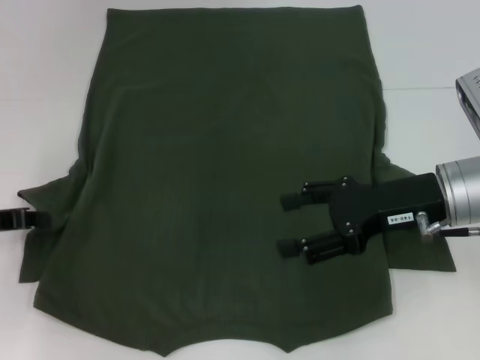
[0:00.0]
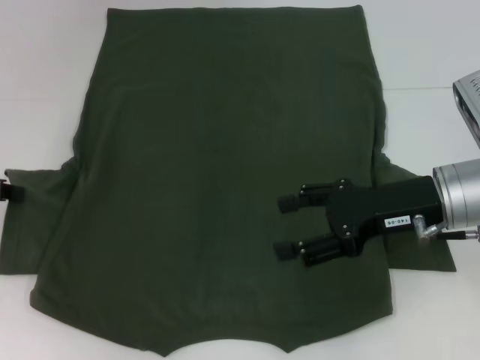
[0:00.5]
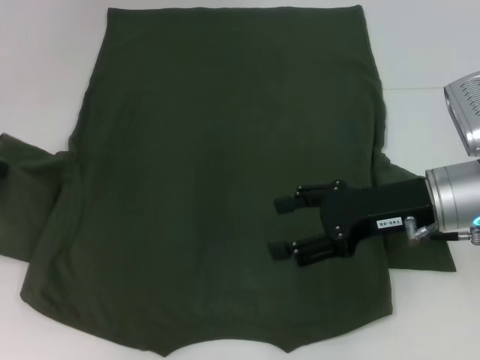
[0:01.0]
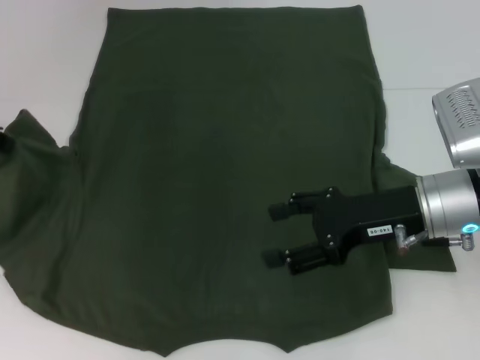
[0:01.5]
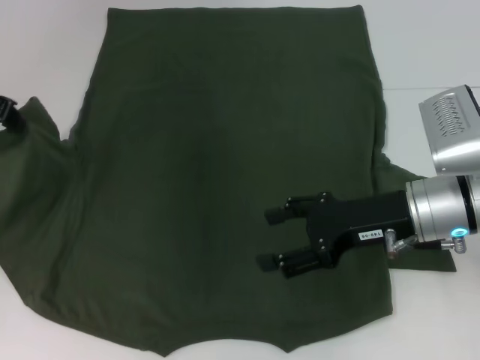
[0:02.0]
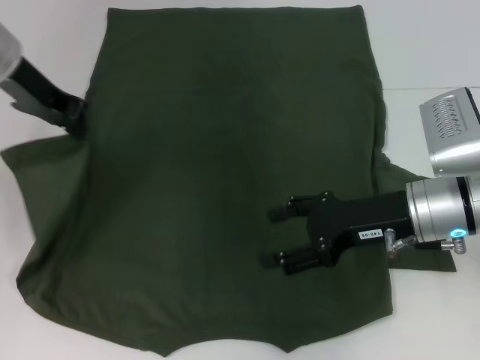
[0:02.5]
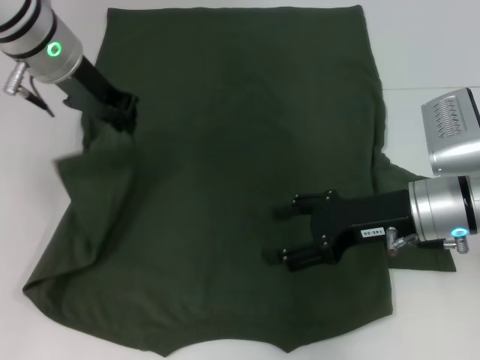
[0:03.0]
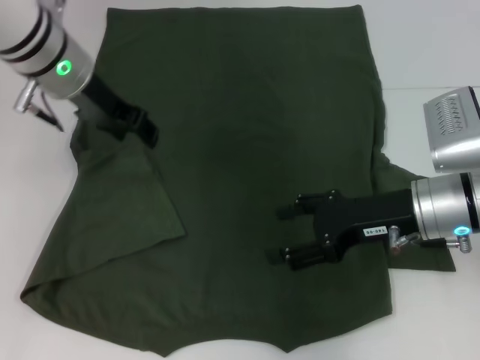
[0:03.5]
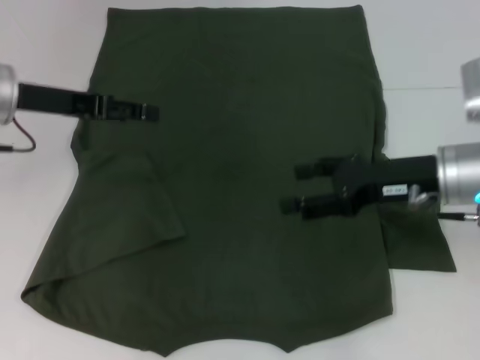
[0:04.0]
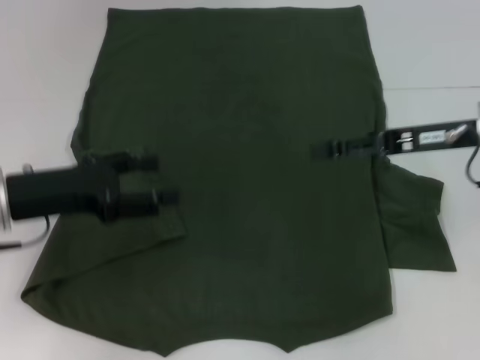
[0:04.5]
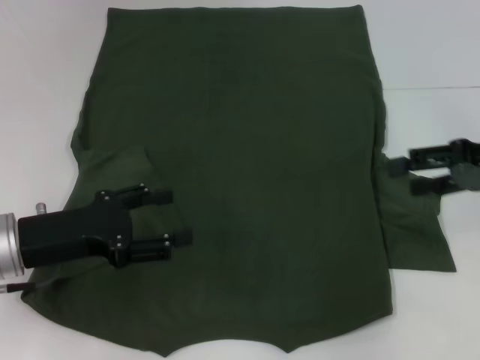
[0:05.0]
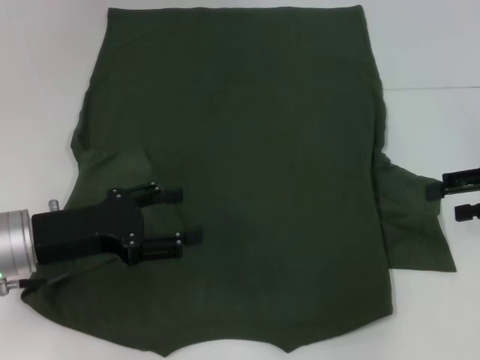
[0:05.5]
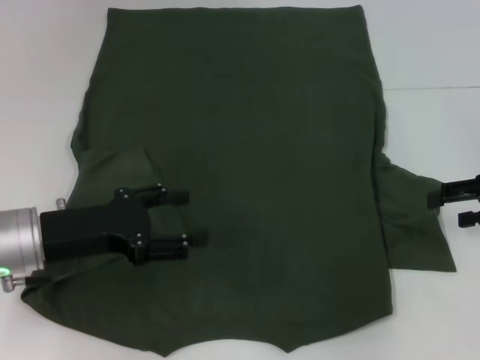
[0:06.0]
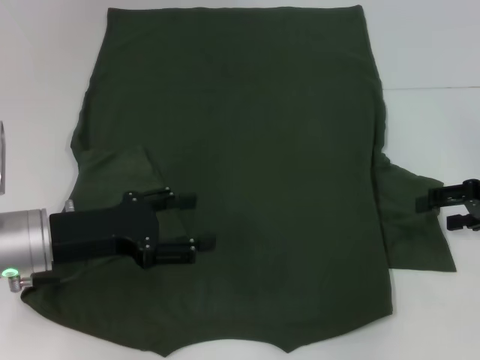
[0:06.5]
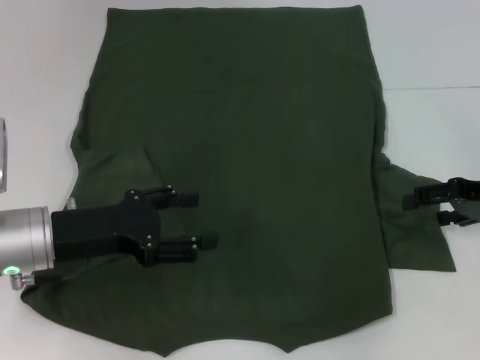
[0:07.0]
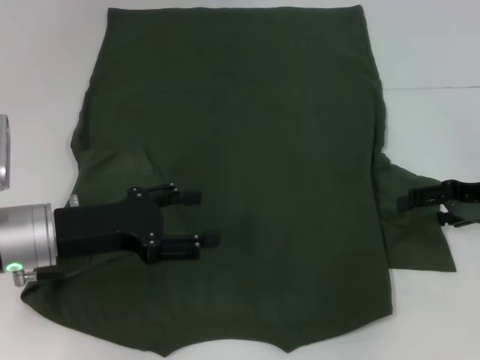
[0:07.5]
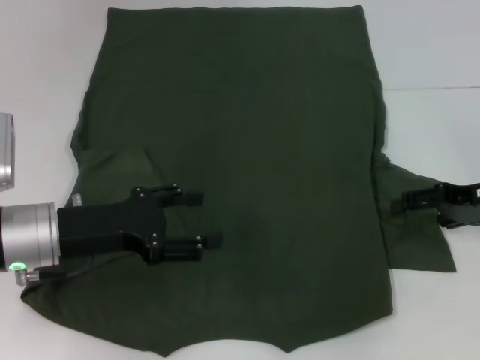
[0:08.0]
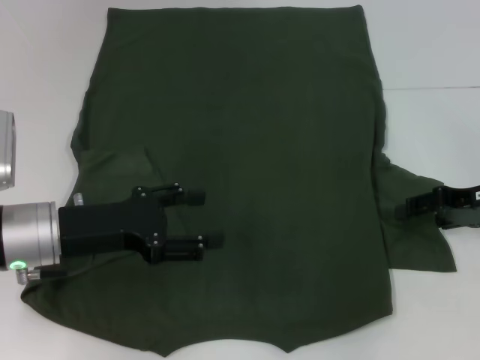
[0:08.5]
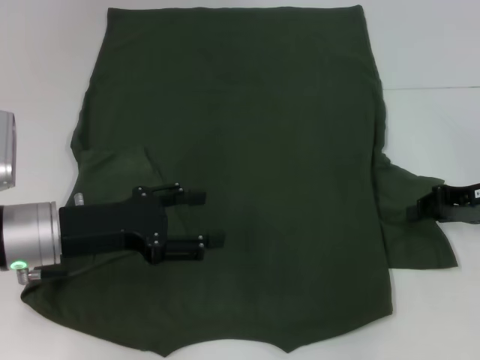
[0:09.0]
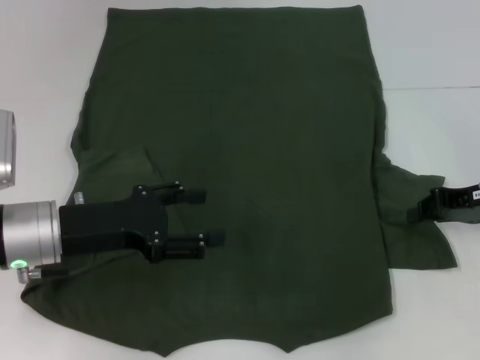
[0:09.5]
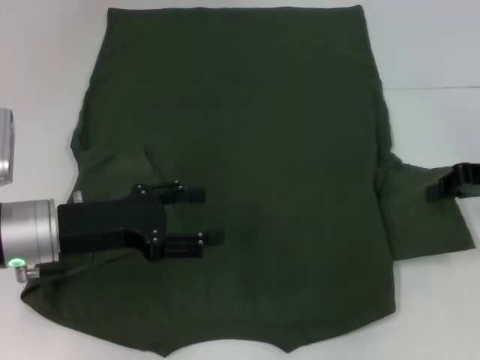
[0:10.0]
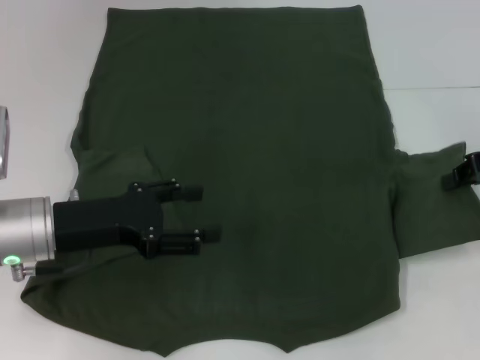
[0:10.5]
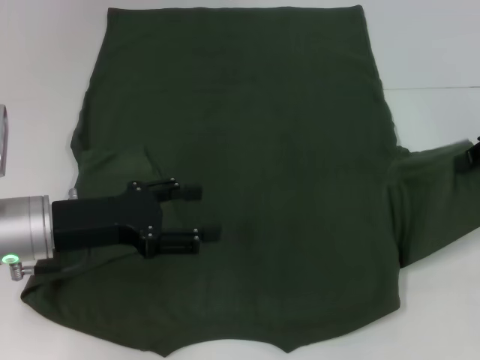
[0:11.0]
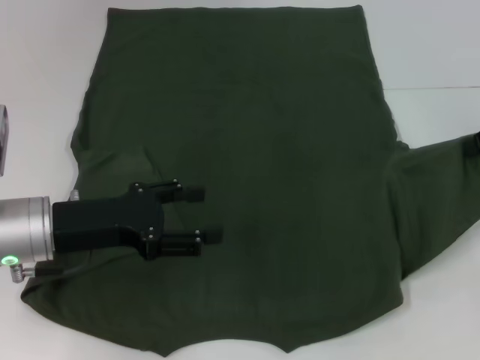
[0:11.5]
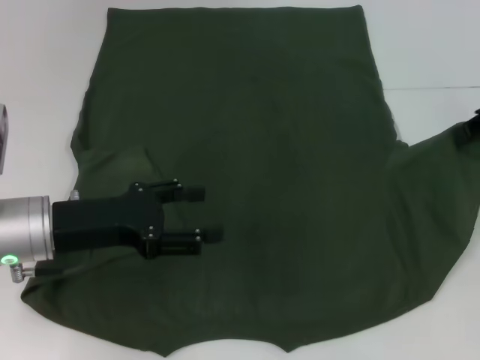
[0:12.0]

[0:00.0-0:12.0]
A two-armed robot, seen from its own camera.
Step, 0.0 to 3.0 s: Fold the bottom left sleeve with your left hand.
0.0 to 2.0 s: The left gripper heads upward and forward, covering some 20 cm.
2.0 to 4.0 s: The left gripper moves to the right, roughly 5 cm, and opens its fingers.
4.0 to 6.0 s: The right gripper shifts approximately 15 cm to the right, while the left gripper travels backward and downward by approximately 15 cm.
6.0 to 8.0 s: The grippers stay close to where they were, moving slightly.
8.0 to 10.0 s: The right gripper closes.
10.0 to 12.0 s: The right gripper goes approximately 10 cm upward.

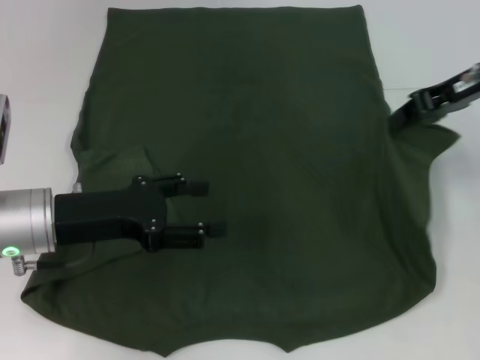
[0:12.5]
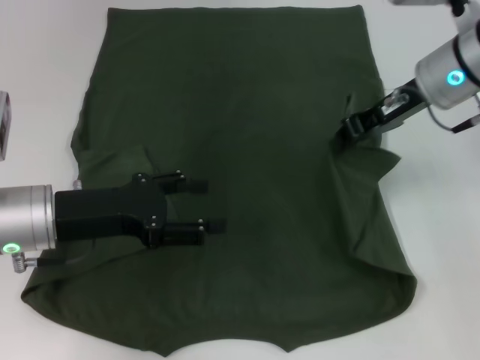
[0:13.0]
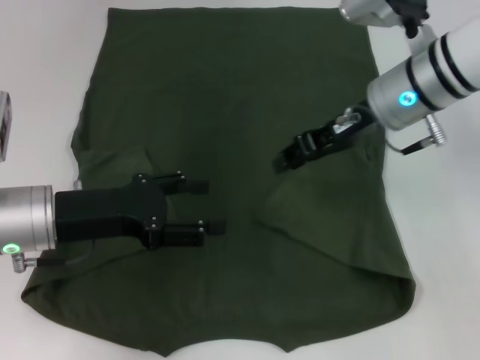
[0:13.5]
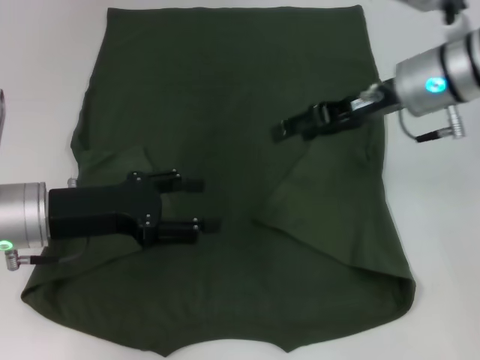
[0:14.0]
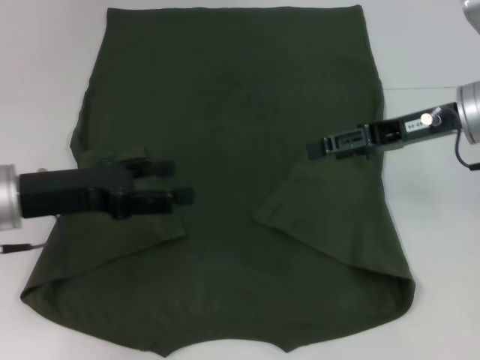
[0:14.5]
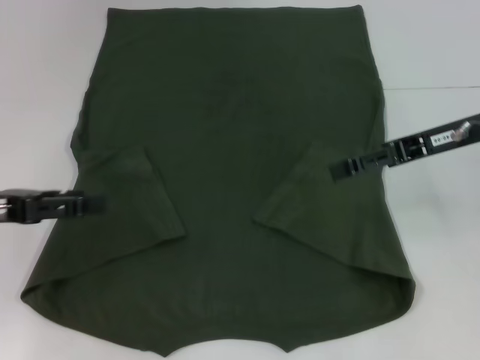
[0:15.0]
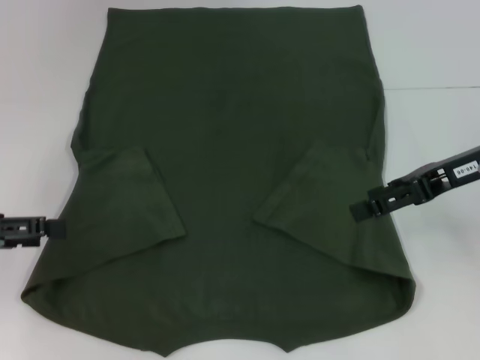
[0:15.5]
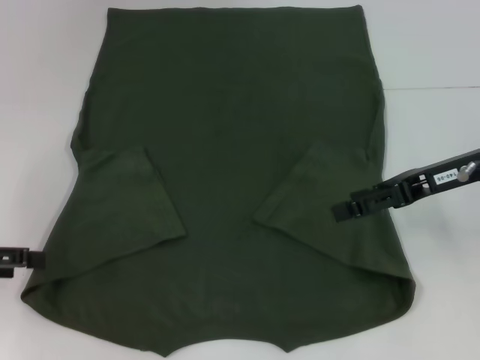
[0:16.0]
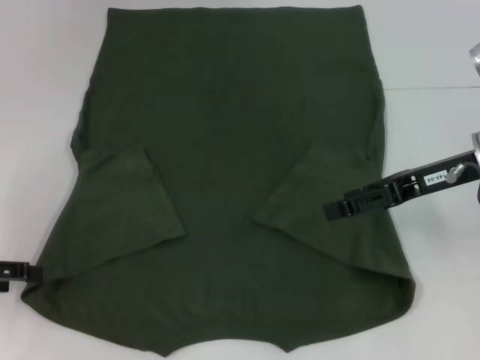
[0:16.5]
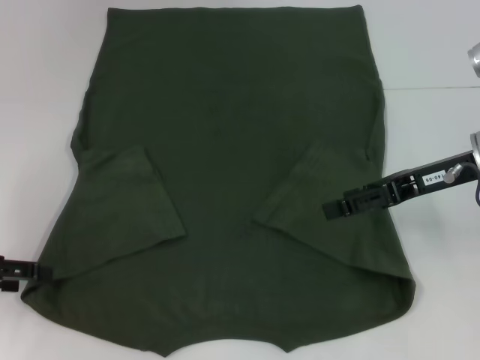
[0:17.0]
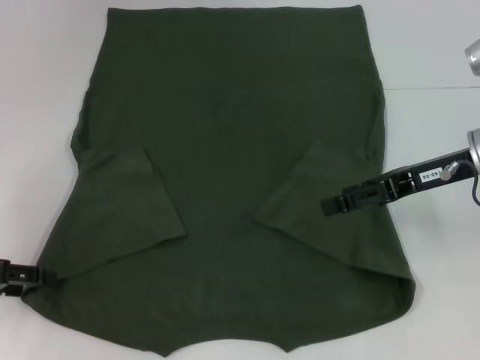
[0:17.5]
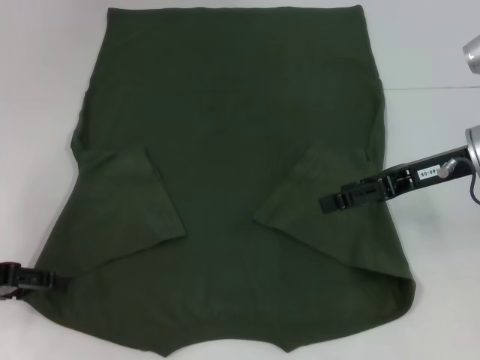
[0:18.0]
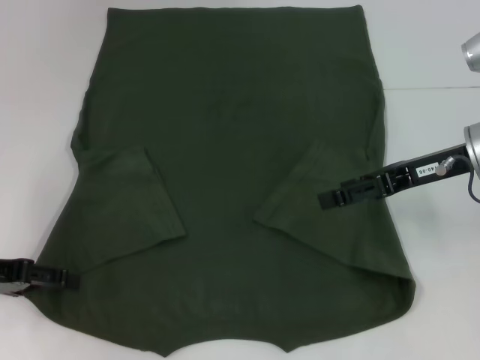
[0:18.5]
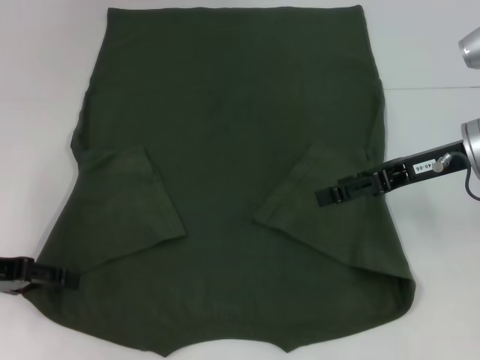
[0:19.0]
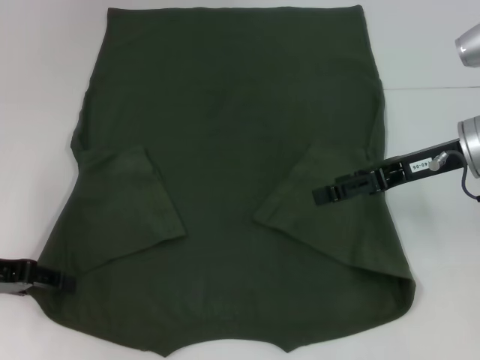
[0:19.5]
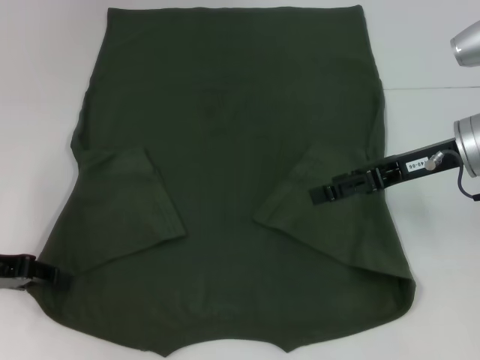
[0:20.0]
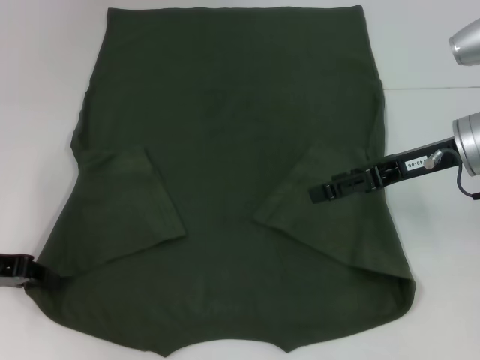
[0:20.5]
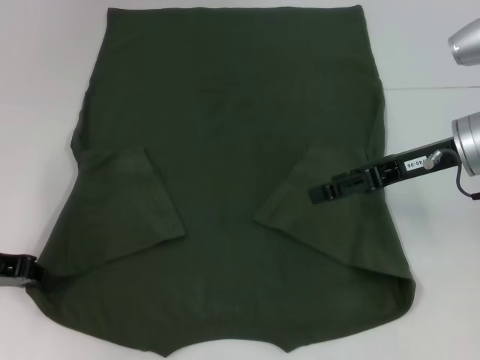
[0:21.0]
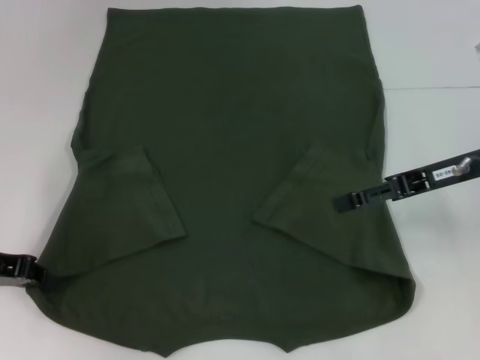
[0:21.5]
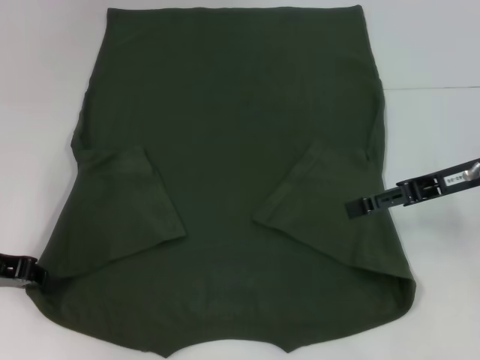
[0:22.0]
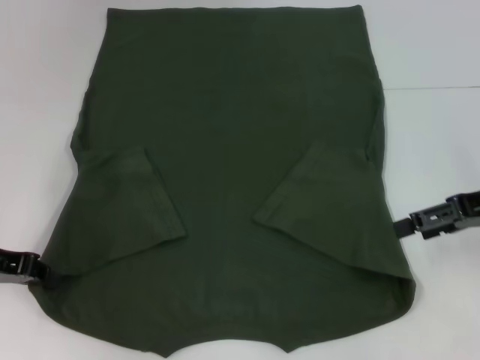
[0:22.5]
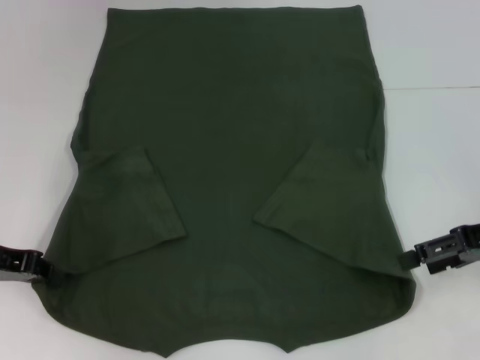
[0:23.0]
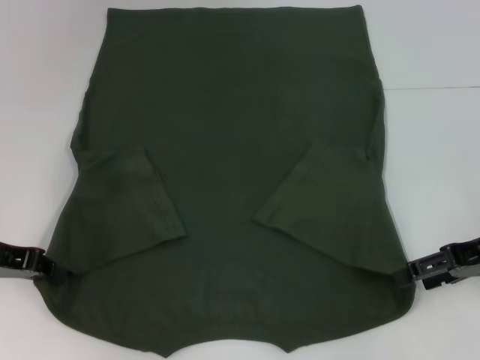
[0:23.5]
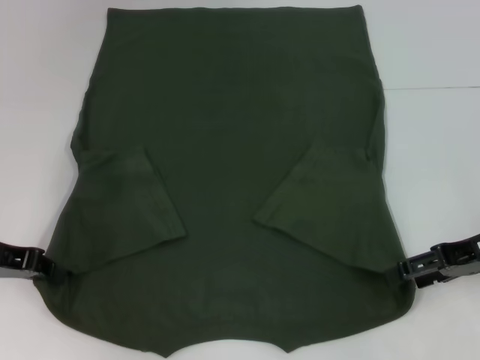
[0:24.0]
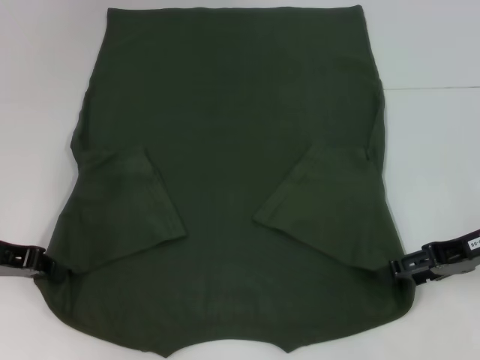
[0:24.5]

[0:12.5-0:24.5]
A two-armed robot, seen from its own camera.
Step, 14.0 to 21.5 s: Grab the bottom left corner with your left hand.
12.5 to 14.5 s: The right gripper travels to the left and back again, about 10 cm each way, and opens its fingers.
14.5 to 16.5 s: The left gripper goes approximately 10 cm to the left.
16.5 to 18.5 s: The grippers make only small movements.
18.5 to 20.5 s: The left gripper closes its fingers.
20.5 to 22.5 s: The right gripper goes roughly 10 cm to the right.
22.5 to 24.5 s: The right gripper moves some 5 cm.

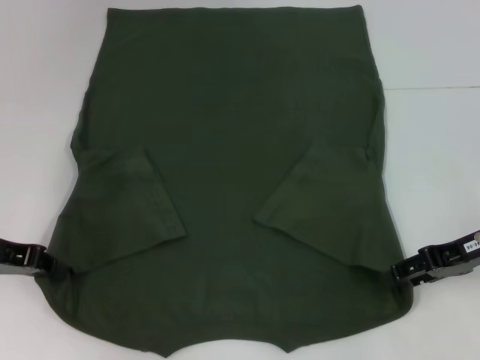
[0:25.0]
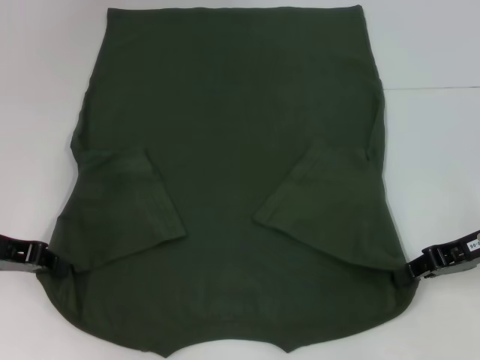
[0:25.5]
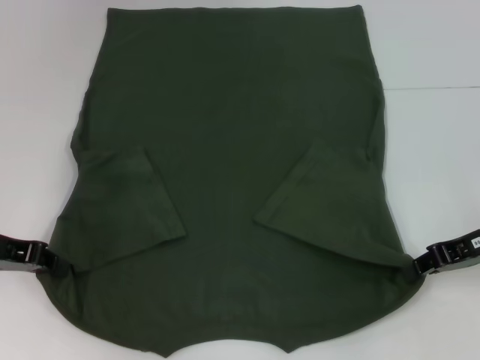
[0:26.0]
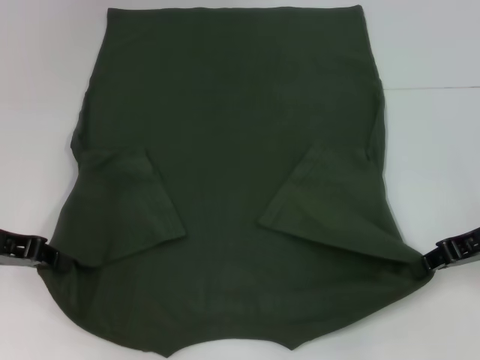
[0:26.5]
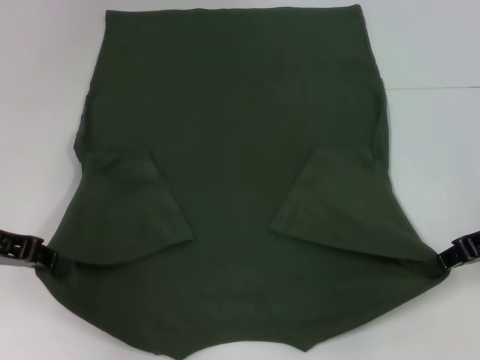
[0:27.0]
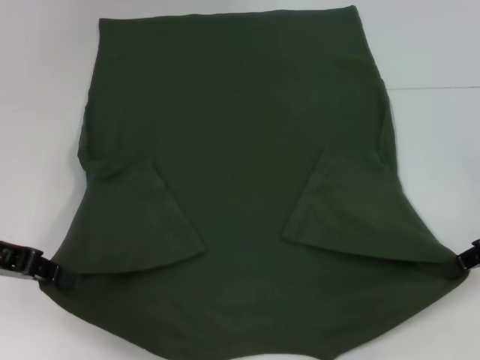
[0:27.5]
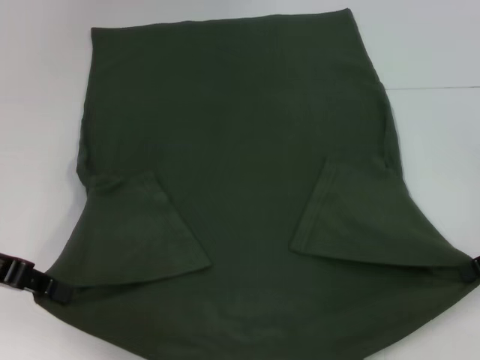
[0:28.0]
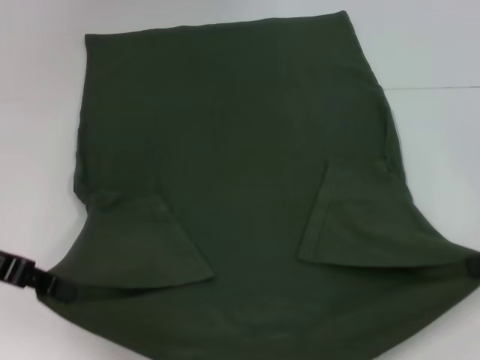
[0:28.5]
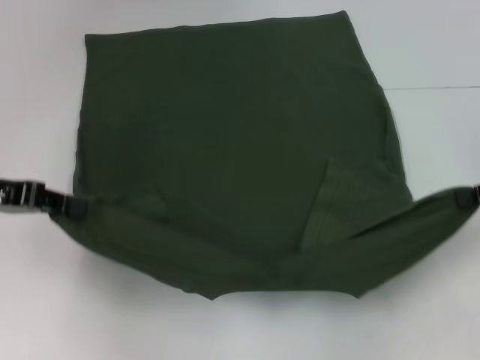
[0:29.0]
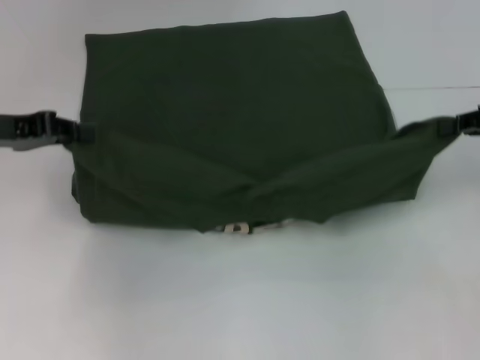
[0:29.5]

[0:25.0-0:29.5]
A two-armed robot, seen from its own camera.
25.0 to 27.0 s: The right gripper closes up.
27.0 to 29.5 s: The left gripper ends up approximately 5 cm from where it was. The right gripper moves roughly 5 cm.
